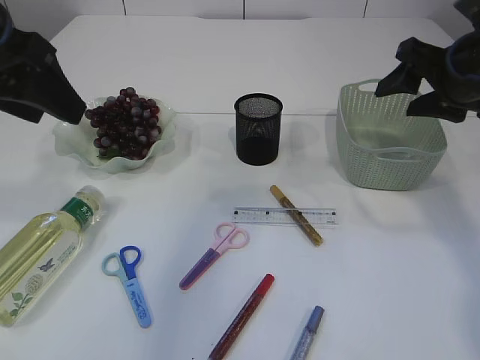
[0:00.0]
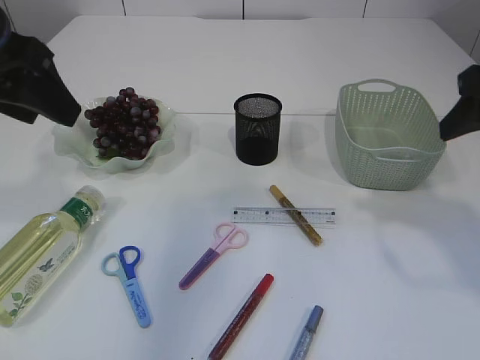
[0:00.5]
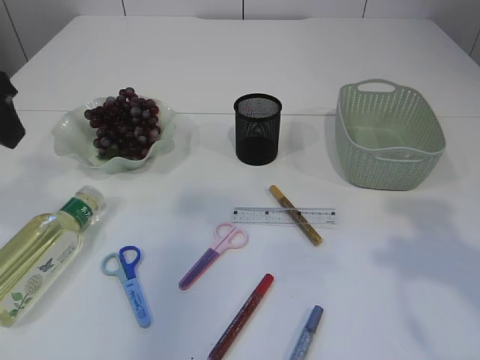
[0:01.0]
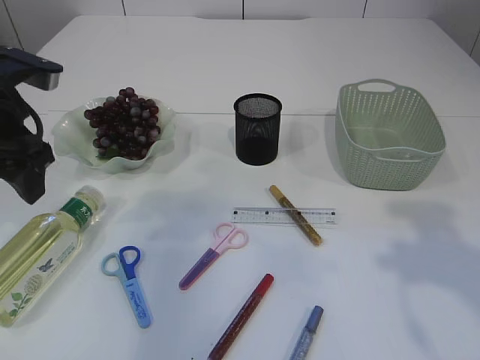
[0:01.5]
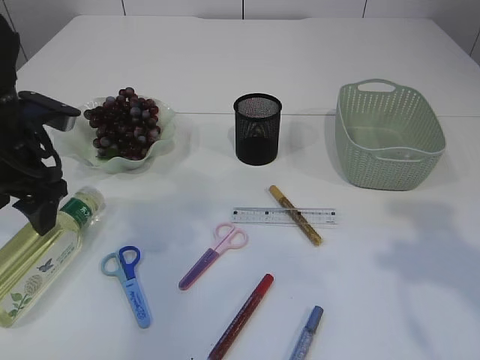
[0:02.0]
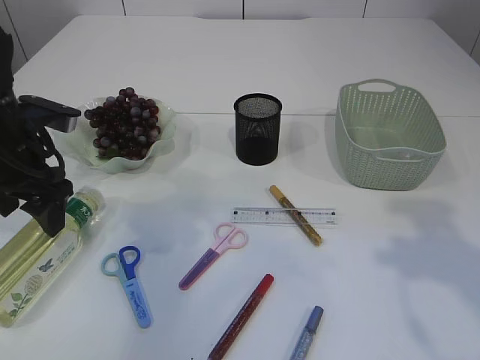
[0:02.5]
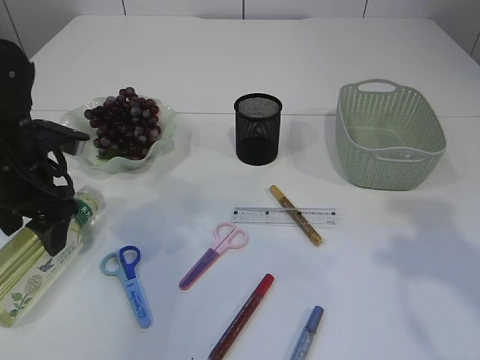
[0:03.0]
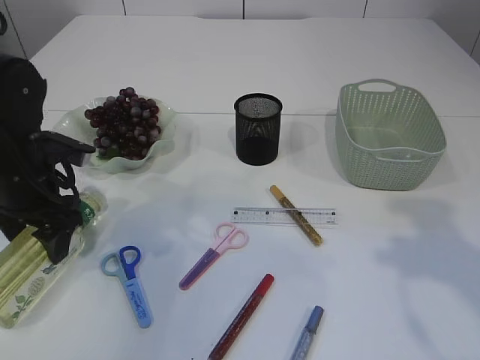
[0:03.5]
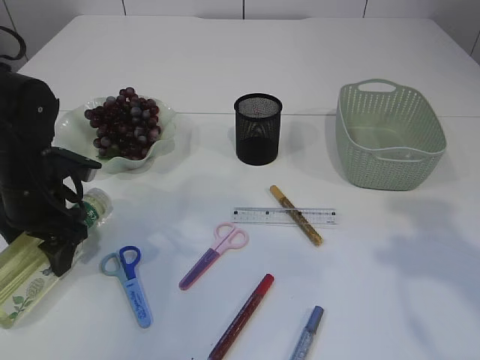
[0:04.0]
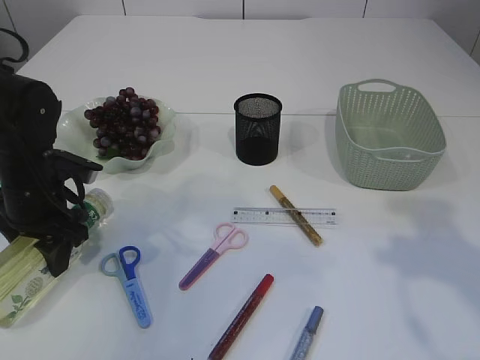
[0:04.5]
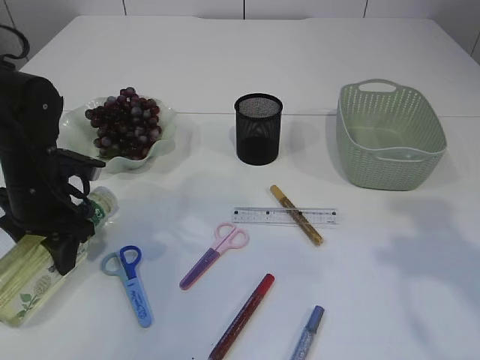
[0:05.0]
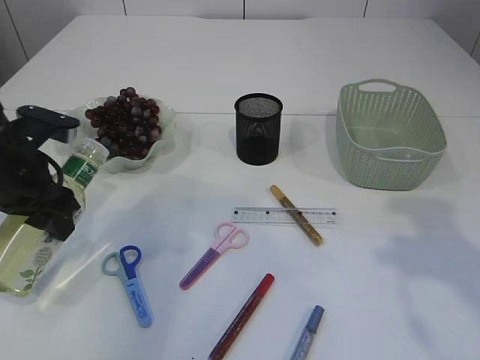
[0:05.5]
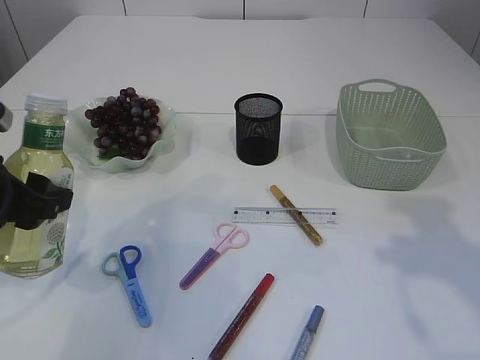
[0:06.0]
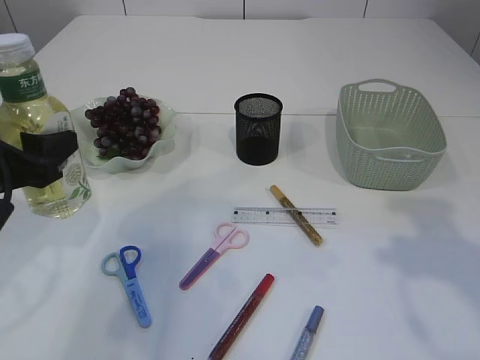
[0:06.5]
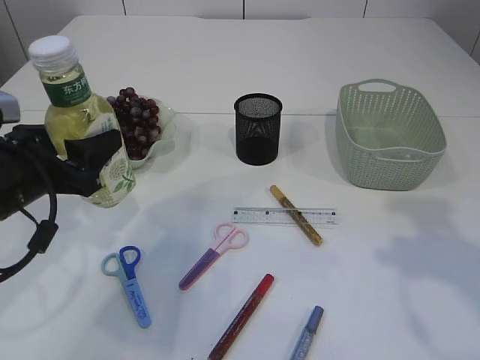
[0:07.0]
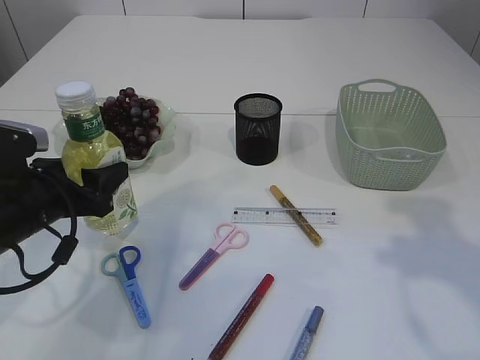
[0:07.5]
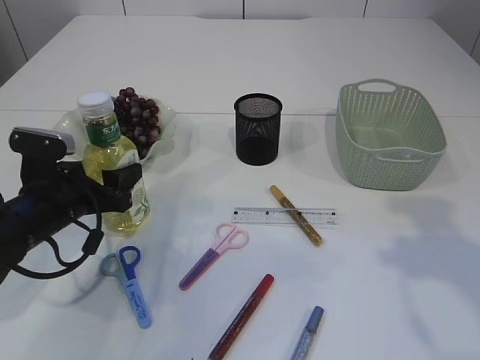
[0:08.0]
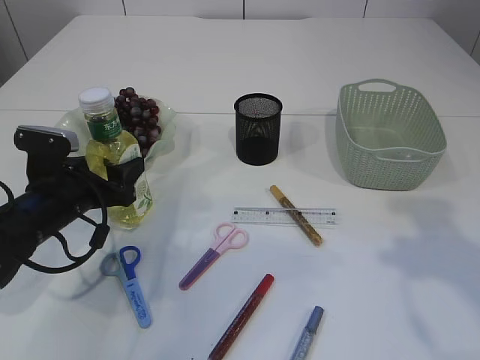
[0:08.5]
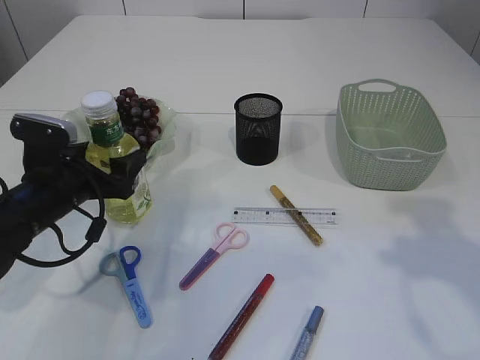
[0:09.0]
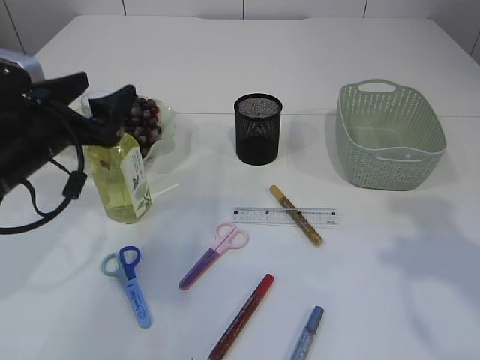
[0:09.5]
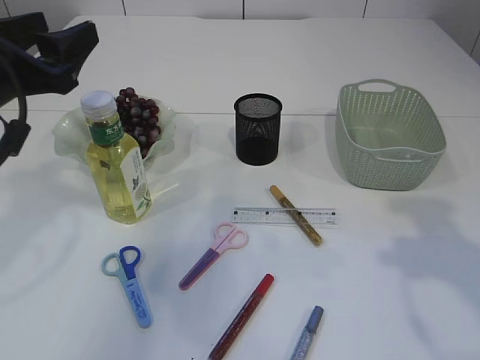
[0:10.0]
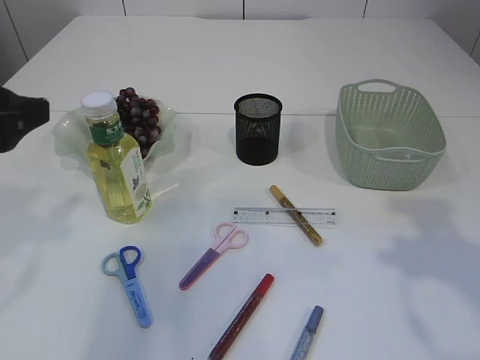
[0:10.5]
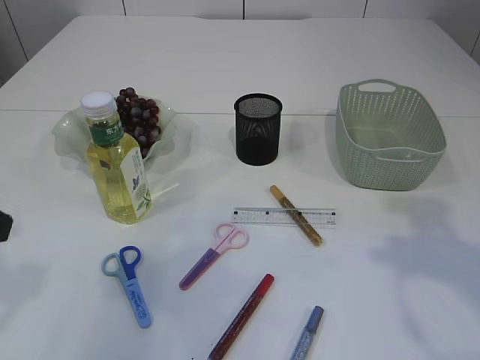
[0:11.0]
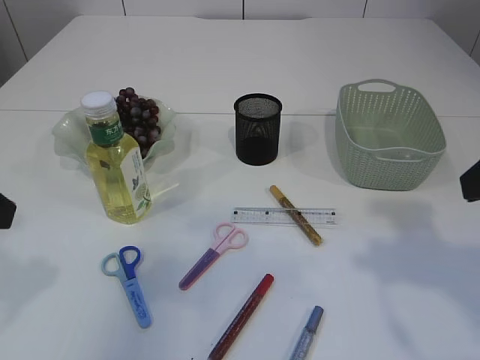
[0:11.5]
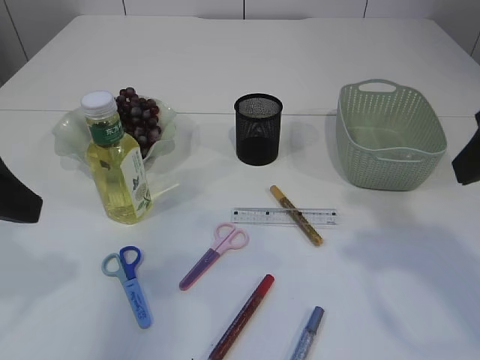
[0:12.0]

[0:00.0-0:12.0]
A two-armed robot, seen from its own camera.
Step, 0.5 to 5.5 s: Pick up the bottle with the left arm.
Step, 6.0 to 9.5 s: Place the bottle.
0.0 to 2.0 s: The left gripper travels downward and forward by about 15 cm; the right gripper goes some 20 cm backward.
2.0 to 4.0 s: The left gripper heads downward, covering some 10 cm.
4.0 to 6.0 s: The left gripper travels backward and upward by roughly 10 cm.
6.0 to 8.0 s: The left gripper heads downward and forward, covering about 10 cm.
8.0 to 10.0 s: The left gripper travels upward by approximately 15 cm.
10.0 to 12.0 s: The left gripper shifts about 10 cm backward.

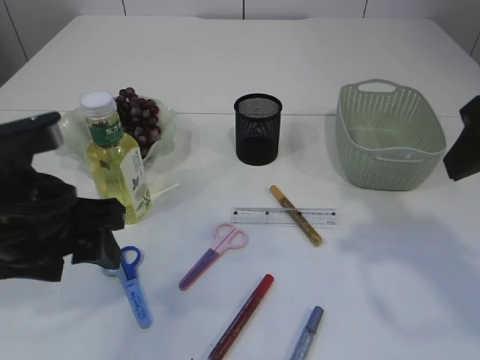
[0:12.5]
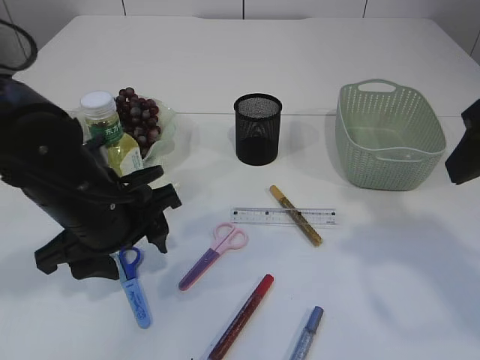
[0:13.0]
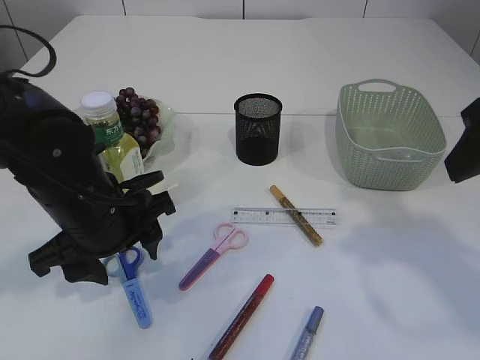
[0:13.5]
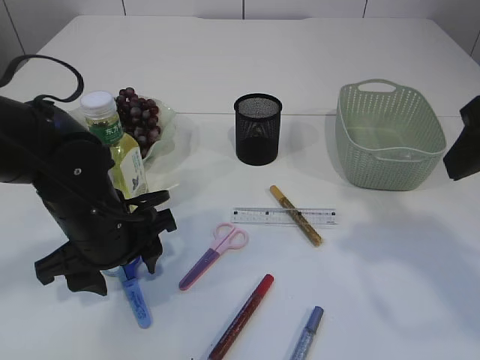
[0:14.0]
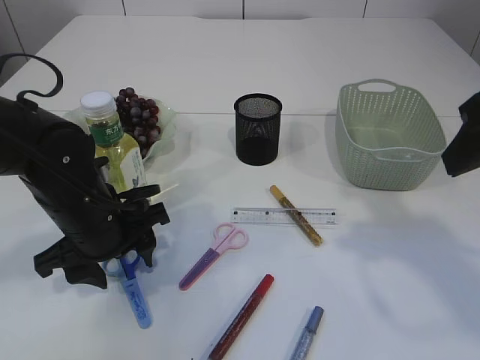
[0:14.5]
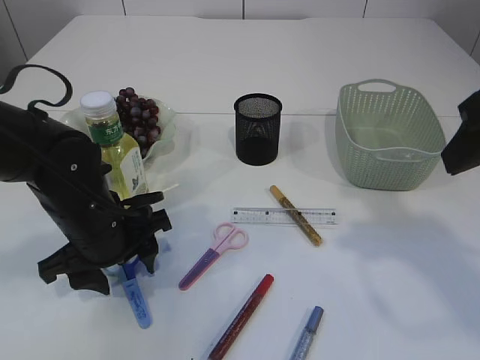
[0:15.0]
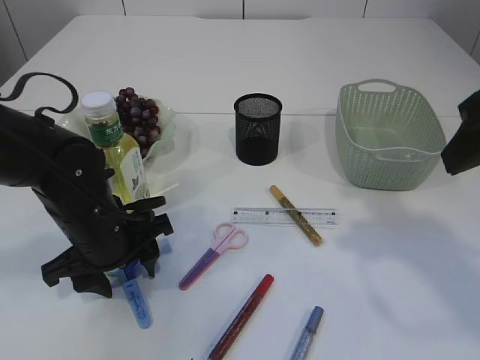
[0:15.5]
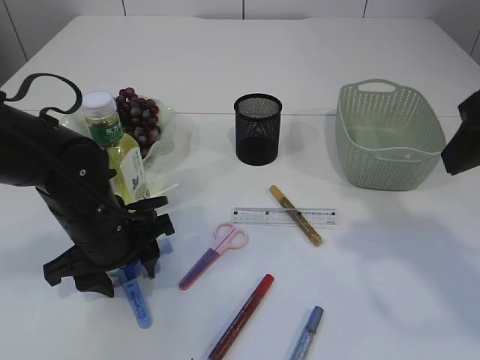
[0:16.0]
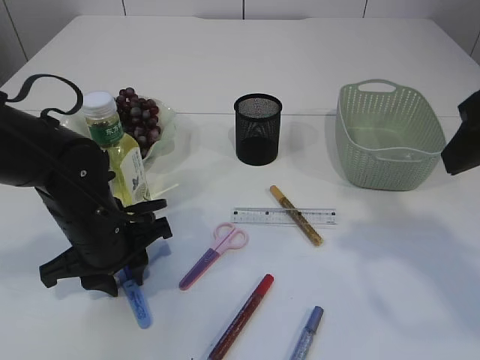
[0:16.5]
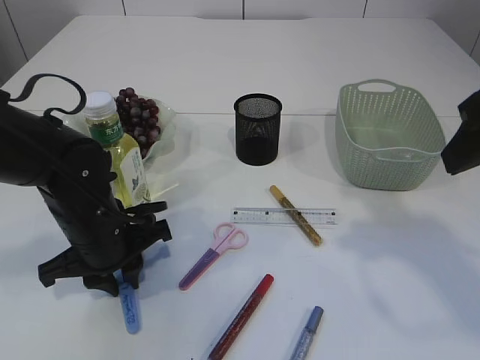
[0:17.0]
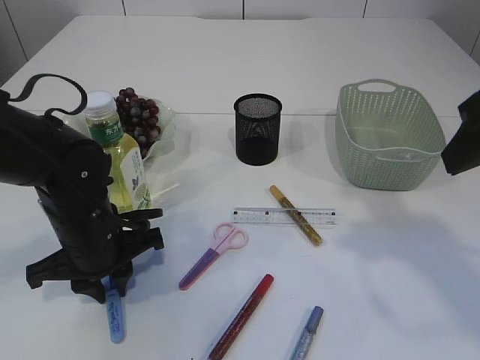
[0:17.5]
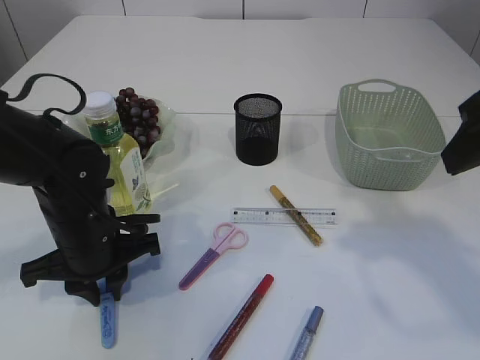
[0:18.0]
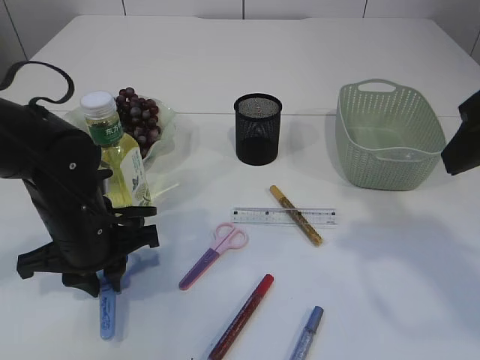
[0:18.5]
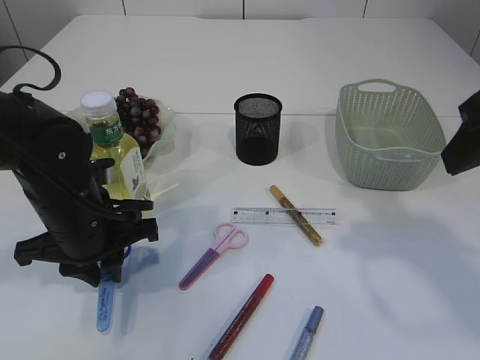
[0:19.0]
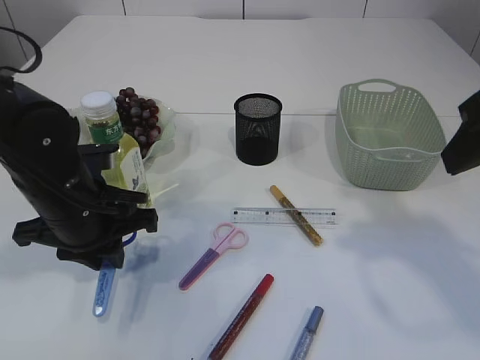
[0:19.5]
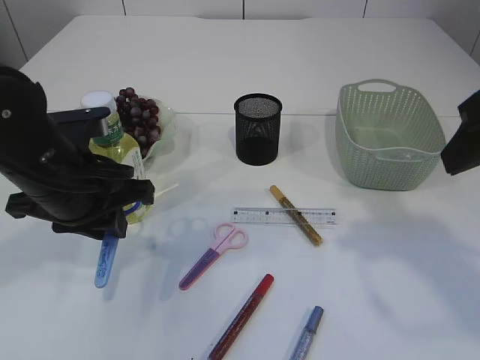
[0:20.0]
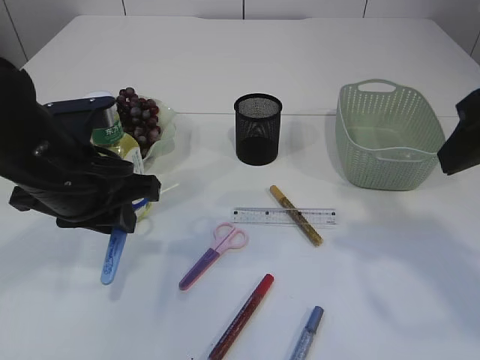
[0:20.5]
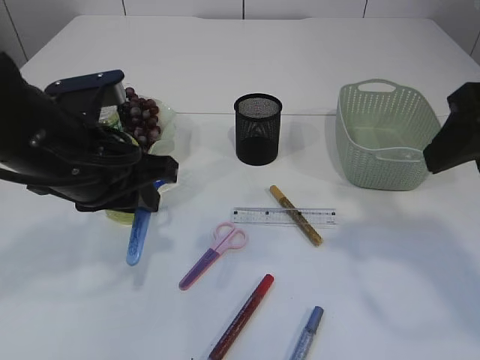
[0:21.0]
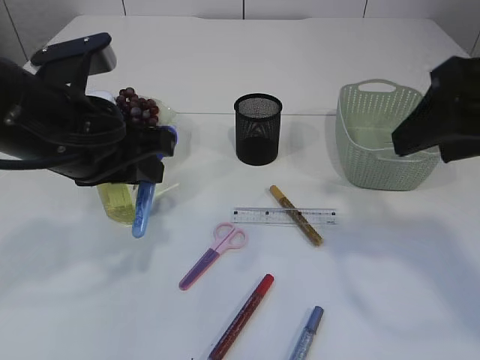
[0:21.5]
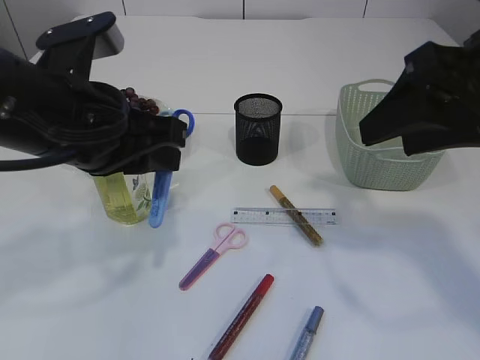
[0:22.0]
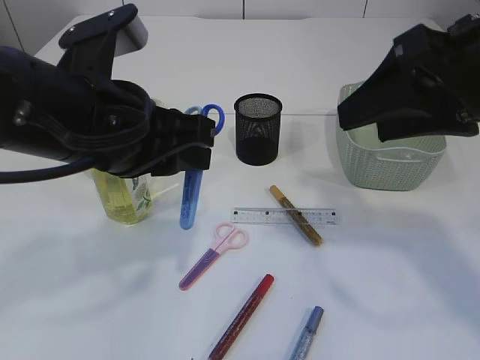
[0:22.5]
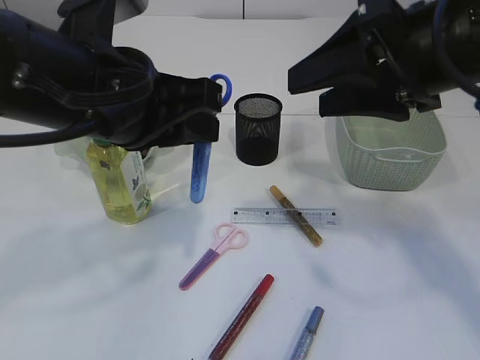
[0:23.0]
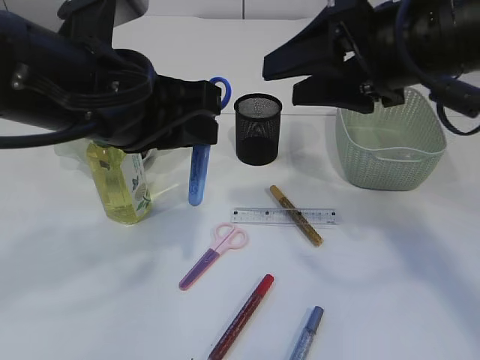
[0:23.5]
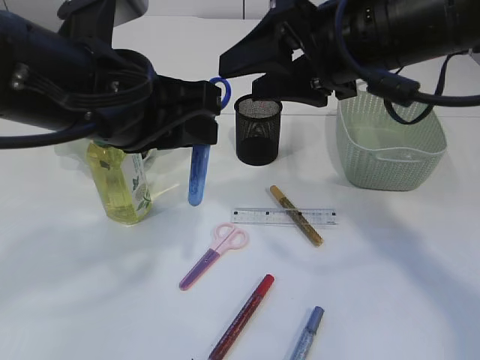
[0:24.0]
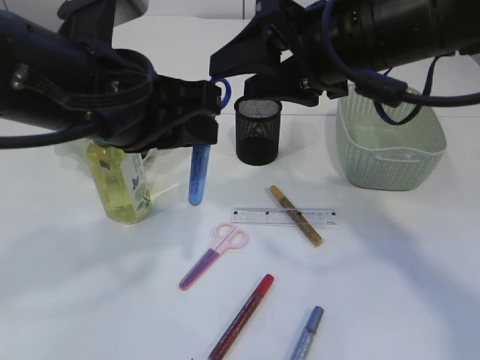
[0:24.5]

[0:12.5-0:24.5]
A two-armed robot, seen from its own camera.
Step, 12.5 to 19.0 s: pick up the blue scissors.
12.5 to 14.5 s: The left gripper travels downward and forward by roughly 15 cm.
14.5 to 18.5 s: The grippers move only a little.
18.5 to 20.5 s: The left gripper is displaced upward by some 10 cm.
20.5 to 22.5 s: The left gripper shifts some 10 cm upward and to the right.
22.5 to 24.5 s: The right gripper is displaced to the left and forward by about 10 cm.

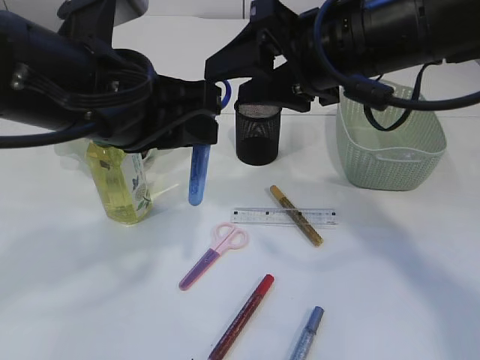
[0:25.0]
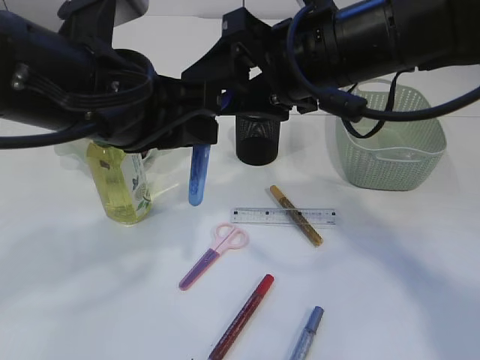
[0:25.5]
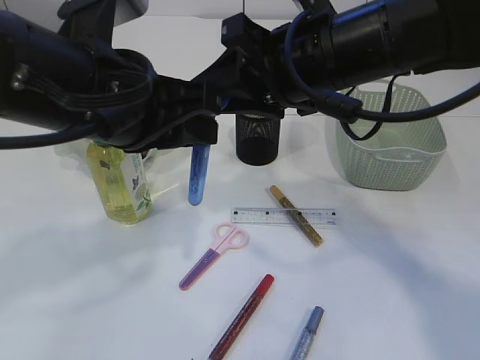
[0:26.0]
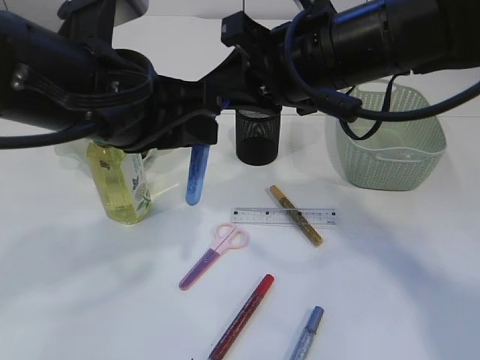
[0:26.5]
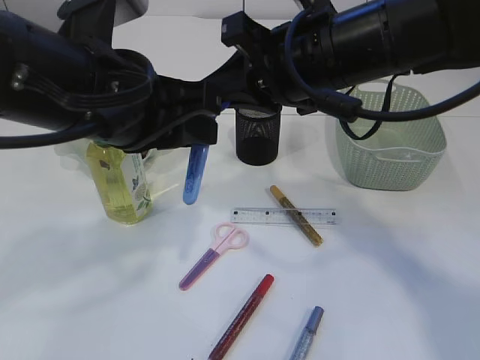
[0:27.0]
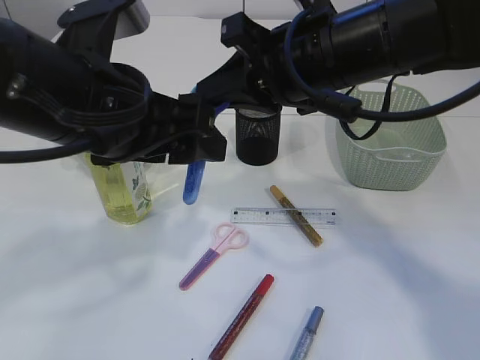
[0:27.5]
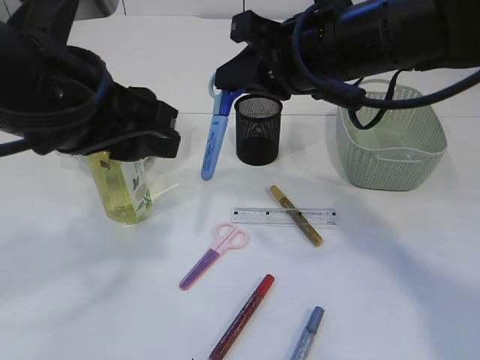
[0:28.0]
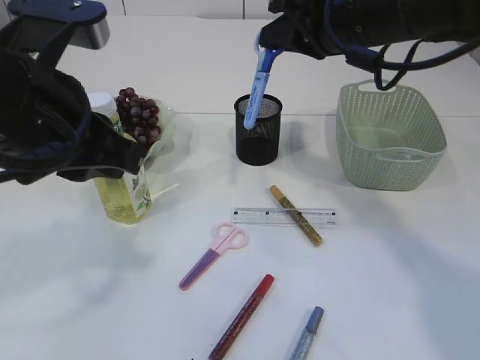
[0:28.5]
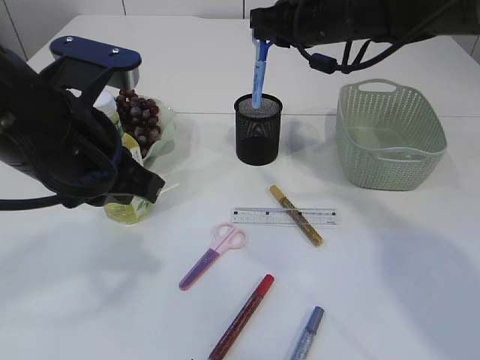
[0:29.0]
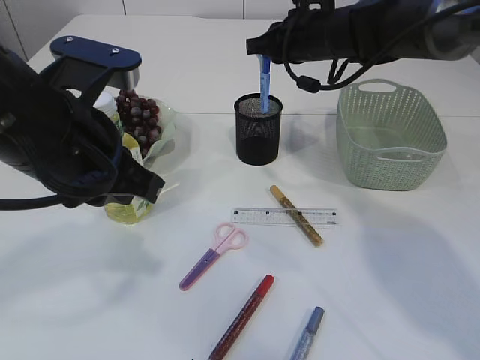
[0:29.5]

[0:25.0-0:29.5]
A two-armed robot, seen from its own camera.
Step, 25.0 to 28.0 s: Hand over the blue scissors.
25.0 to 27.0 s: The right gripper closes up.
27.0 to 29.5 s: The left gripper opens, then closes again. The right gripper heads forward, covering some 15 cm.
